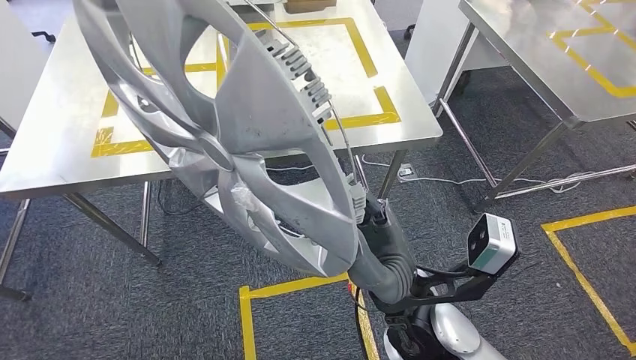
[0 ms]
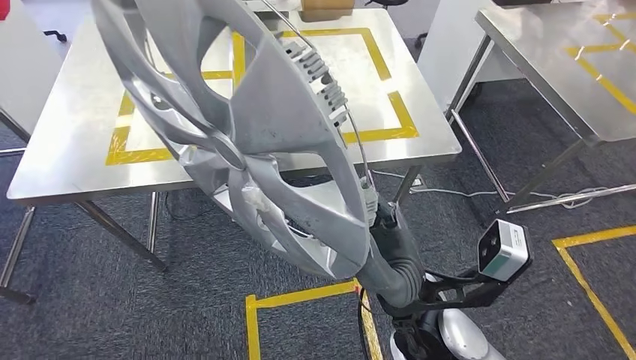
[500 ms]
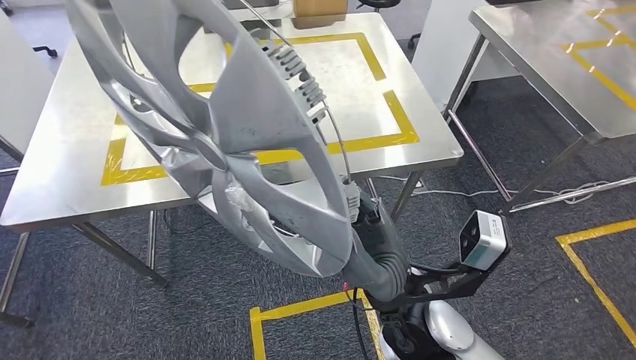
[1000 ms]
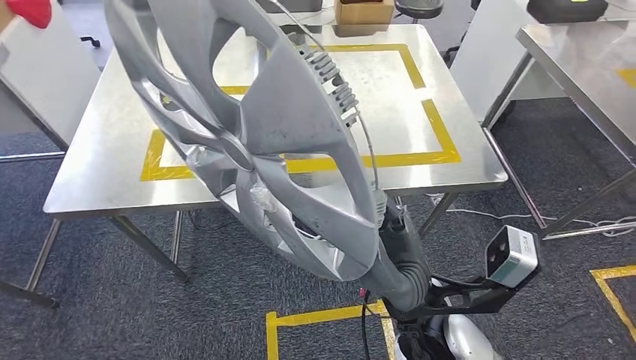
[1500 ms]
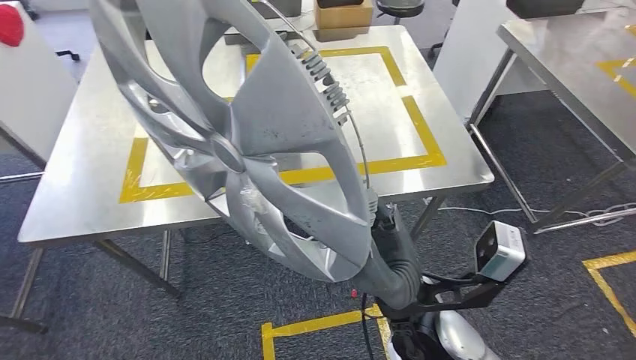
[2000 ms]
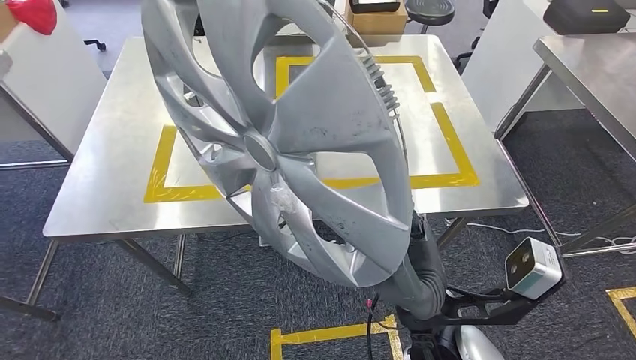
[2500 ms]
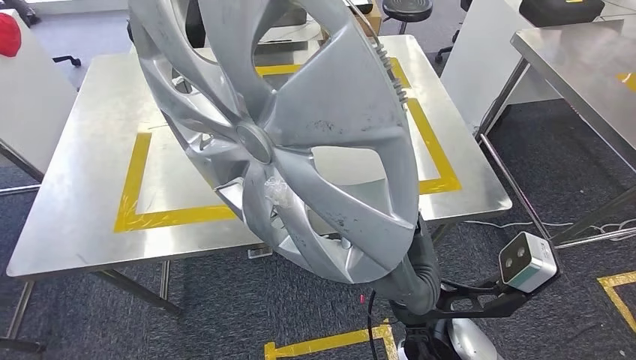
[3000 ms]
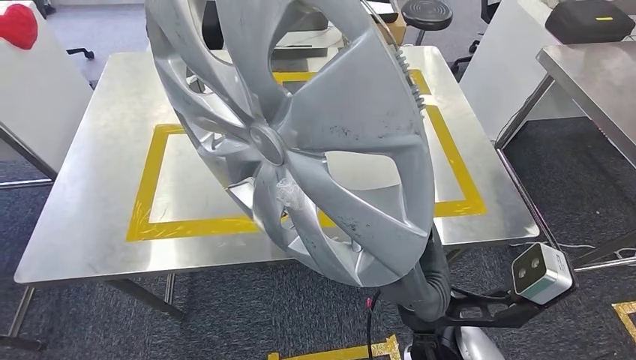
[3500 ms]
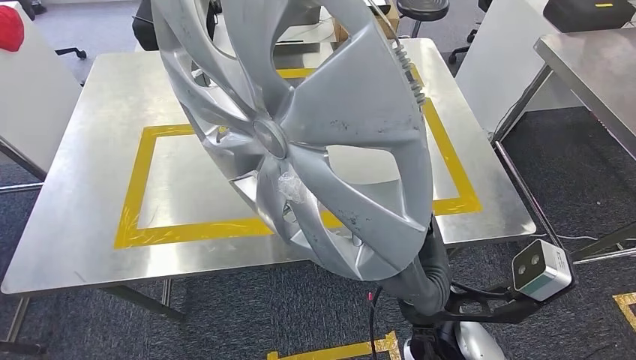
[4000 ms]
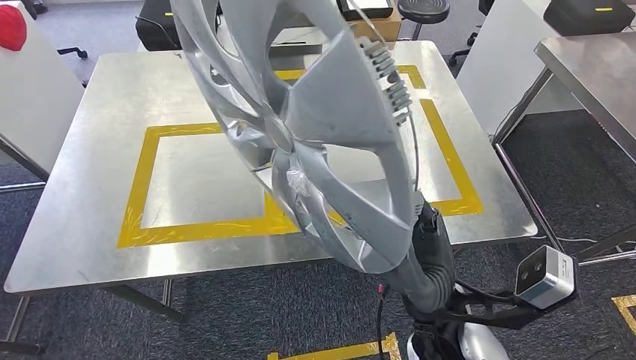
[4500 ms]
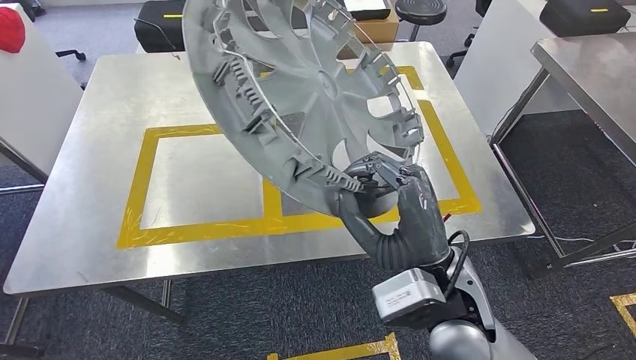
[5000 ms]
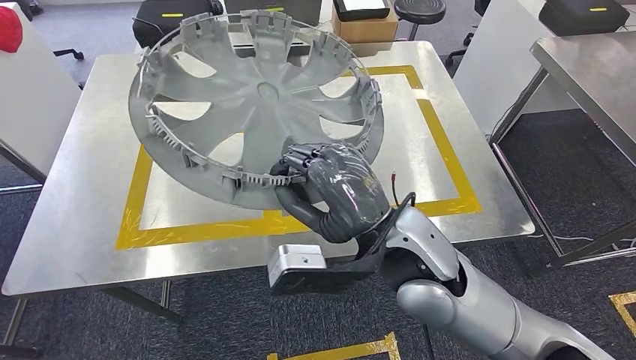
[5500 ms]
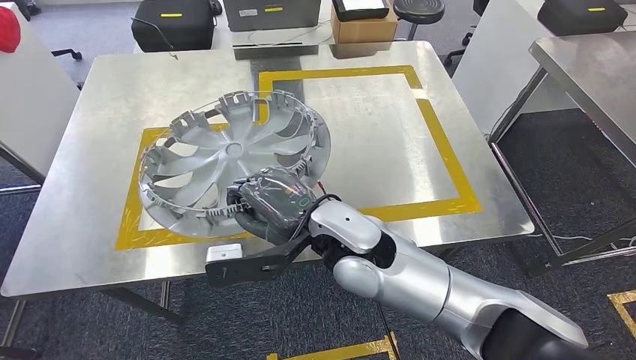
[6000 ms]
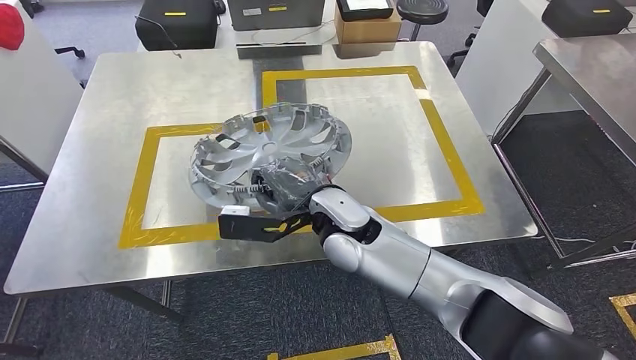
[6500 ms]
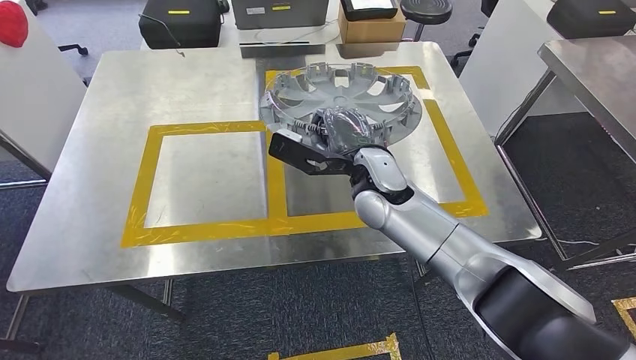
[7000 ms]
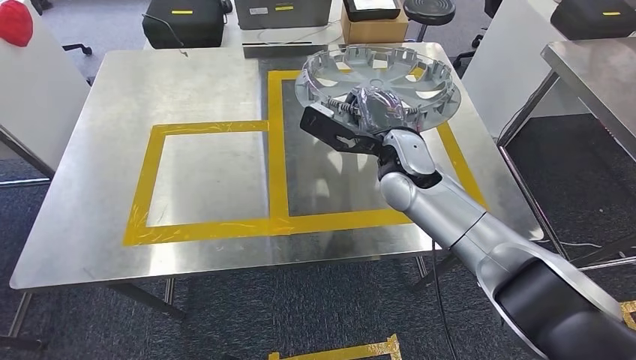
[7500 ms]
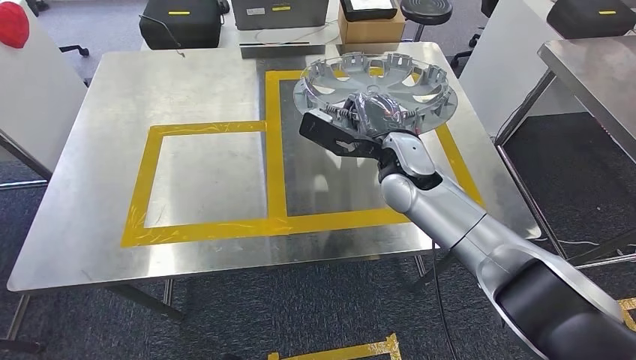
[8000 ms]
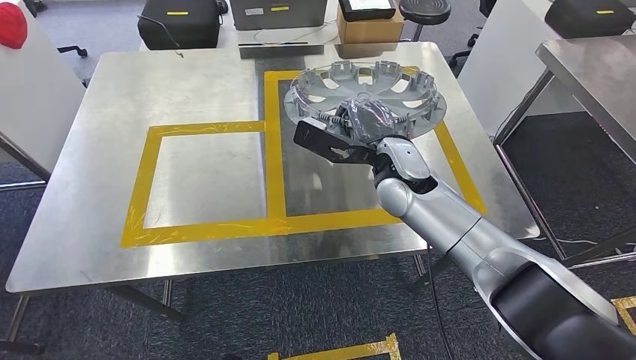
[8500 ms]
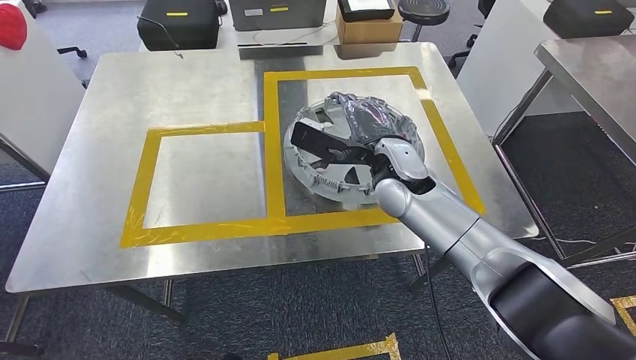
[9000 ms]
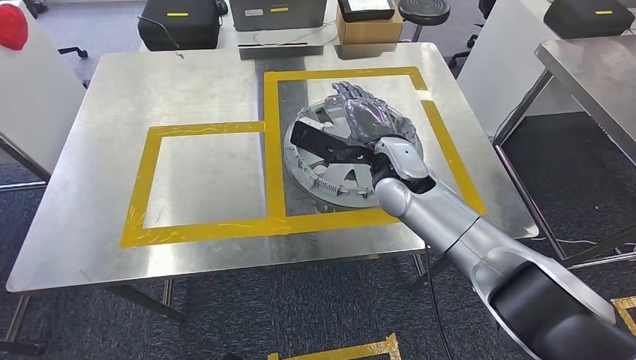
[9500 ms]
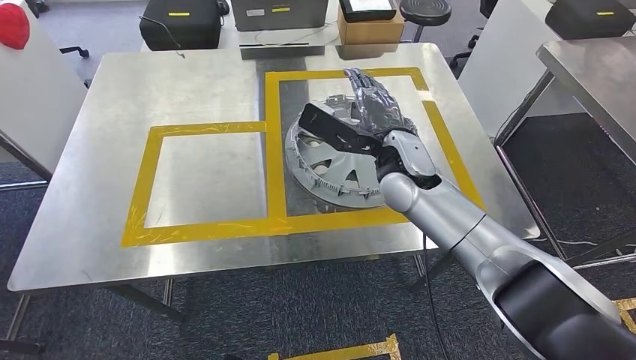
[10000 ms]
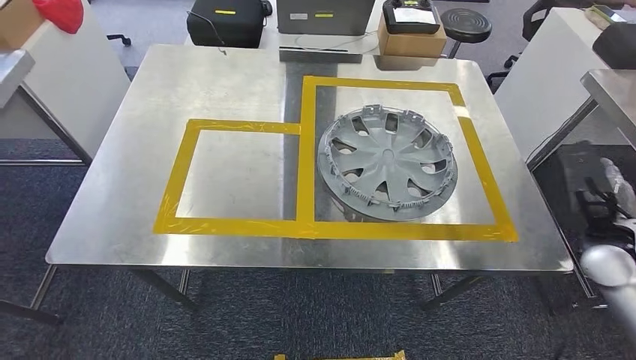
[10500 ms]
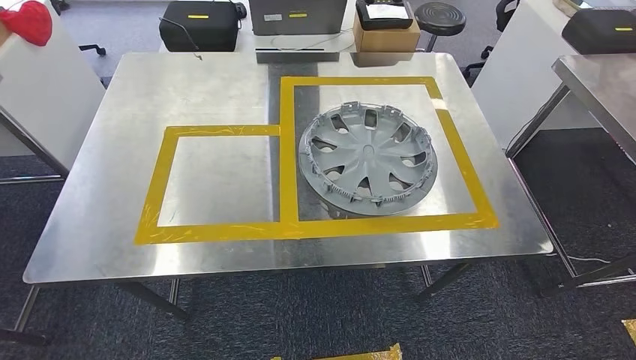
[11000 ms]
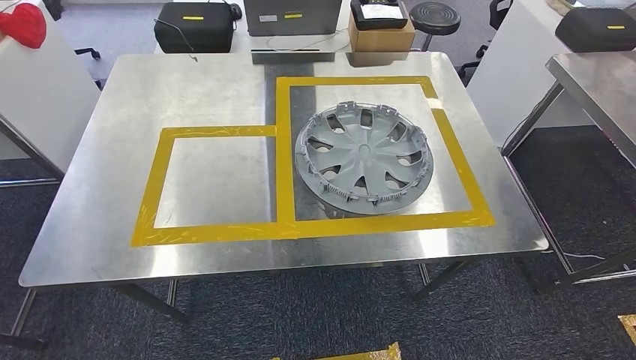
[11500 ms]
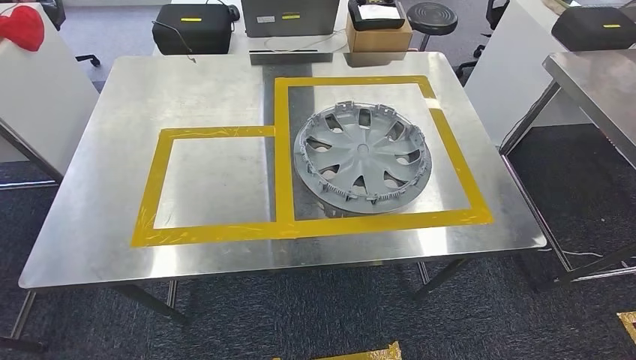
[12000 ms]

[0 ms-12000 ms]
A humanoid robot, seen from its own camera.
Step, 0 ms to 3500 ms: Move the small parts to the workbench.
Step, 4000 ms to 11000 ms: Insert the small parts into the corresponding holes on the workbench.
8000 ms to 10000 ms: The hands stay close to where they were, moving slightly.

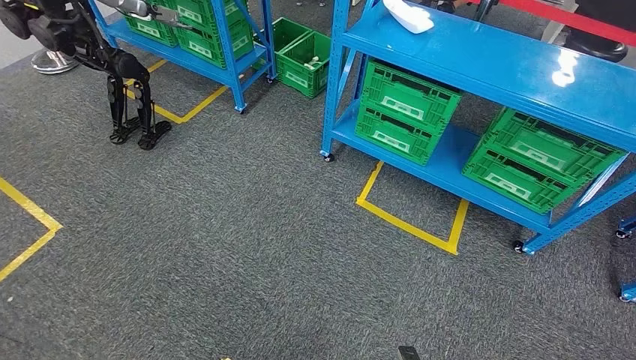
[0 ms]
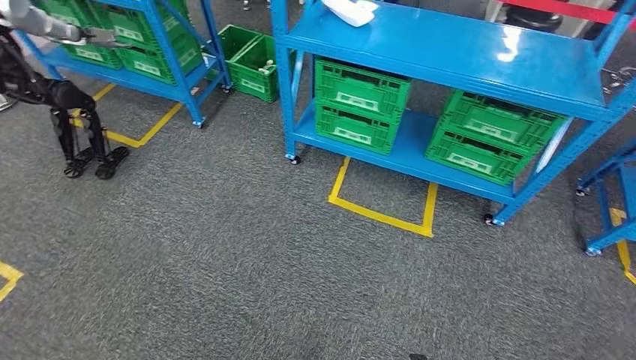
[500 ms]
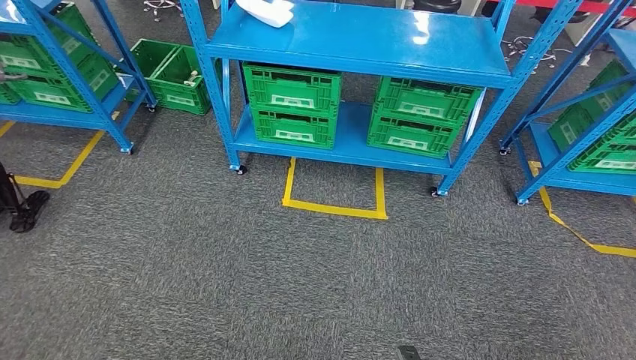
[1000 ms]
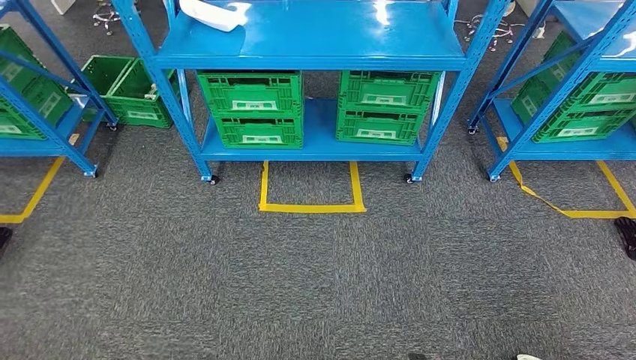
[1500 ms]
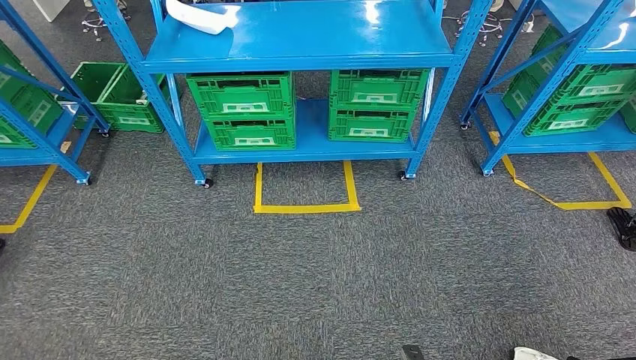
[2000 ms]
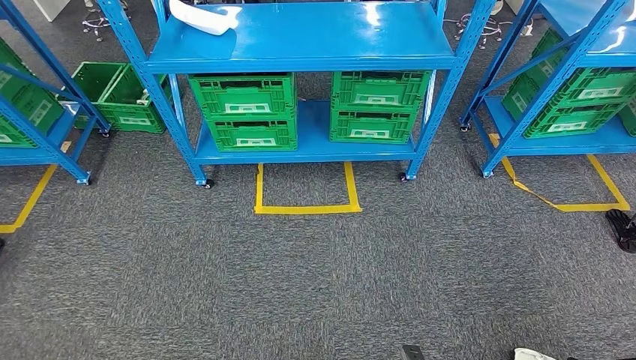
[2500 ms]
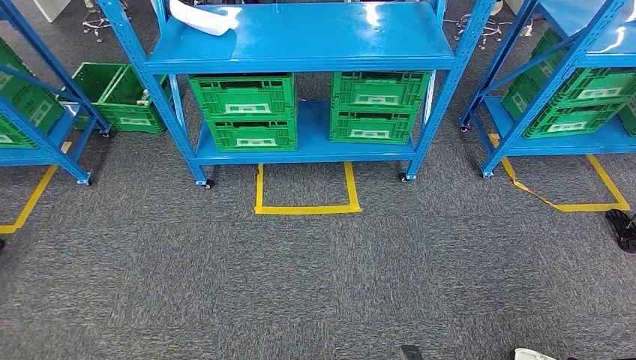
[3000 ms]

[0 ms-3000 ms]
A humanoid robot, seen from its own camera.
Step, 0 ms to 3000 ms: Move to the initial position of the workbench.
1500 ms to 3000 ms: Neither hand changes place.

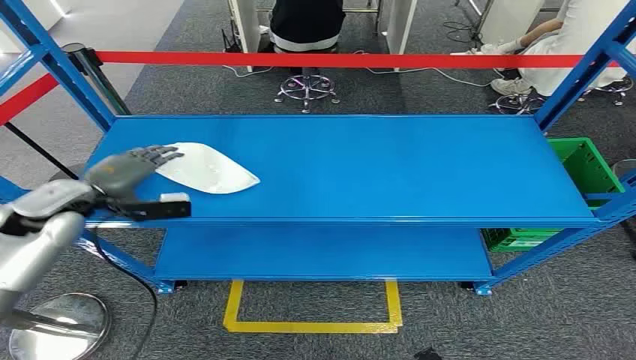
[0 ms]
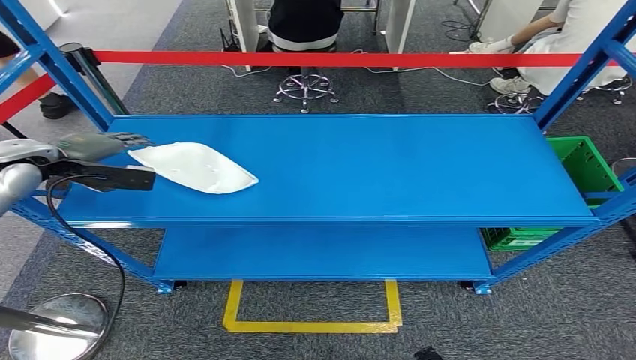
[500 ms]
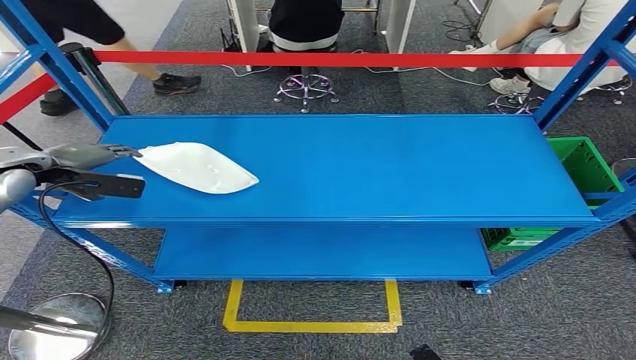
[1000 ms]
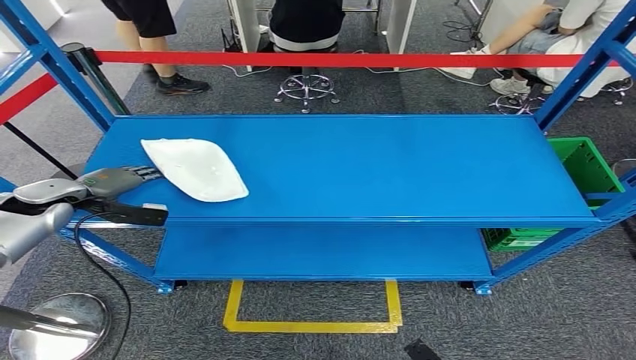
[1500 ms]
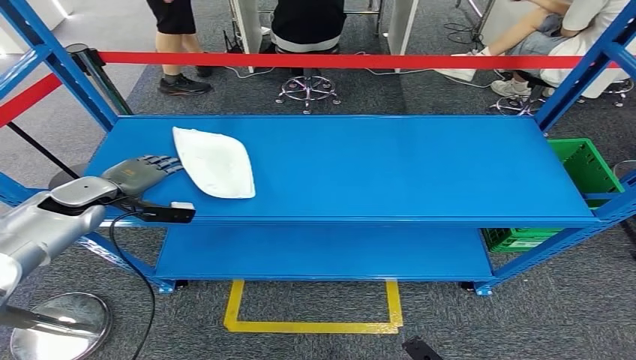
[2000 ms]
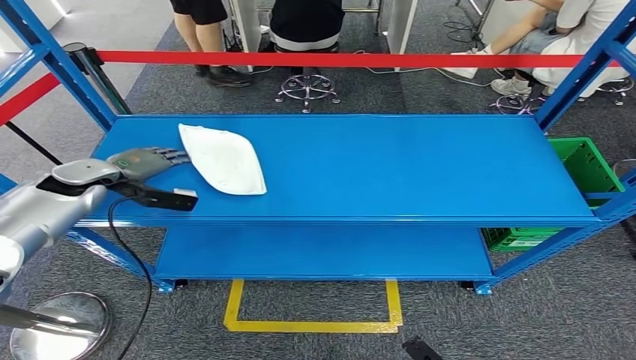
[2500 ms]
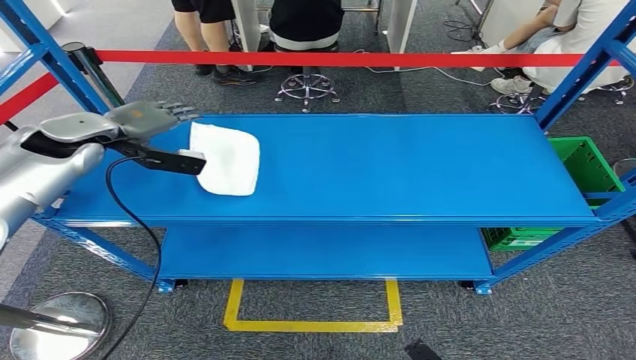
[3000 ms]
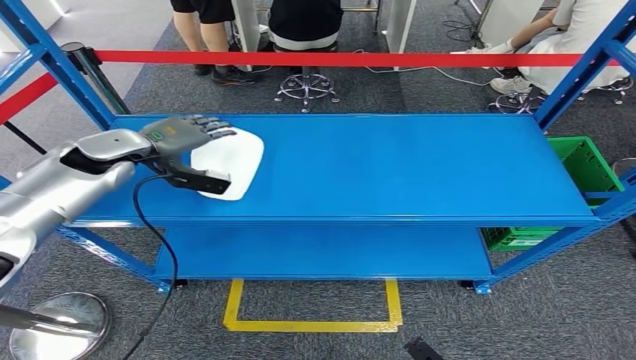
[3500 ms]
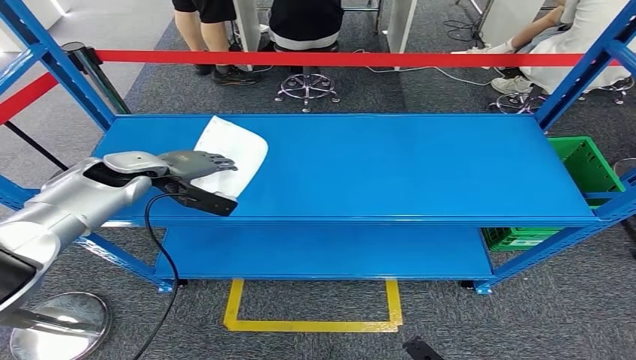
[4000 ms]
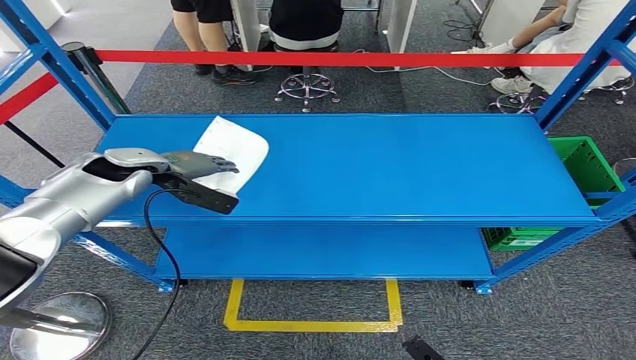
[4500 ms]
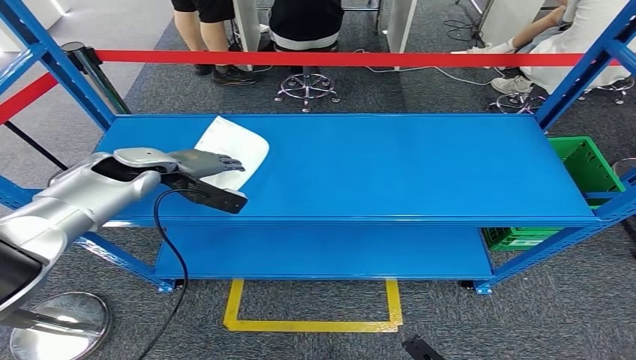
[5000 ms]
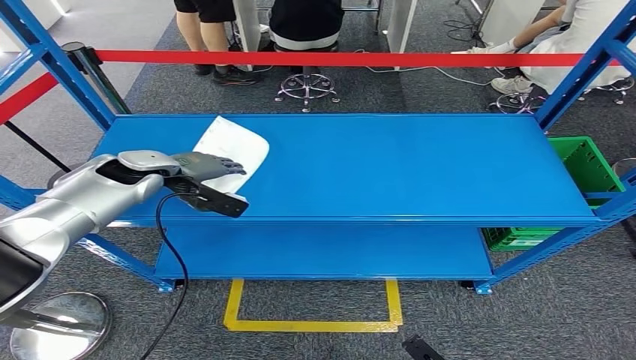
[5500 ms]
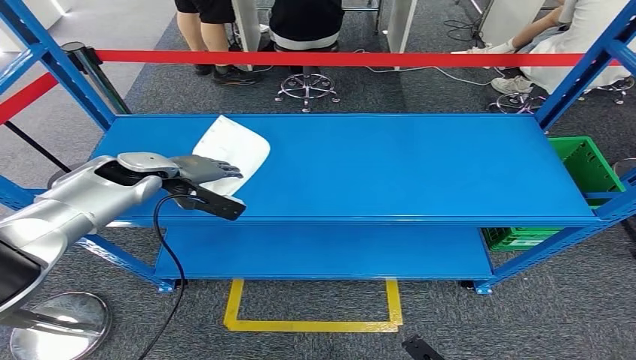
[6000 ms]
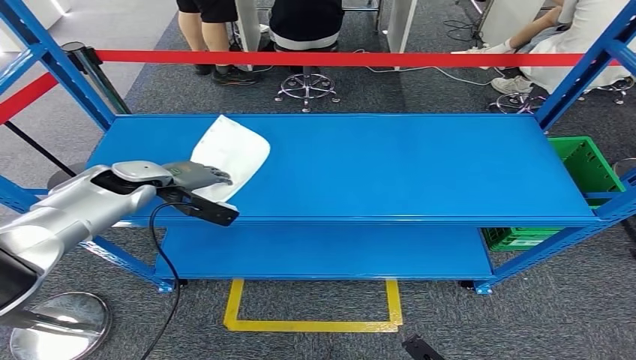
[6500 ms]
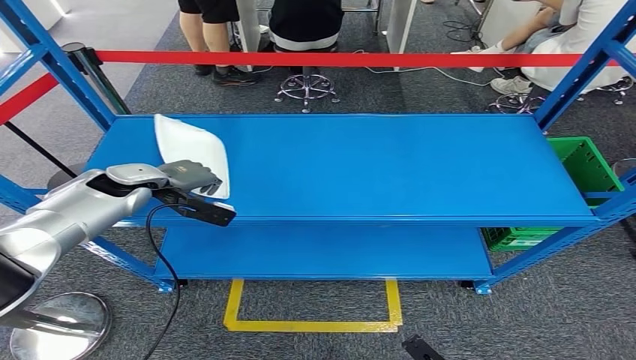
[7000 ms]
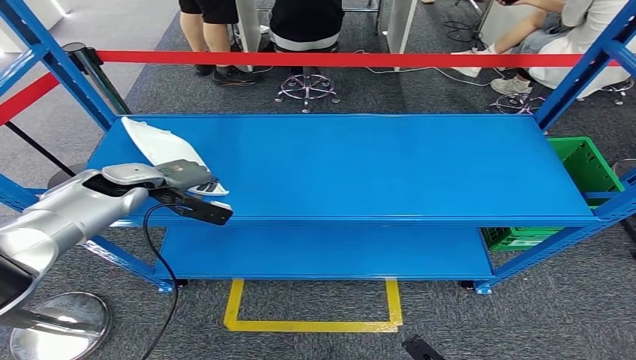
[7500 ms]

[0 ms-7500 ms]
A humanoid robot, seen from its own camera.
2000 ms to 4000 ms: The left hand goes roughly 10 cm to the right, upward and forward.
4000 ms to 7500 ms: The hands move only a little.
